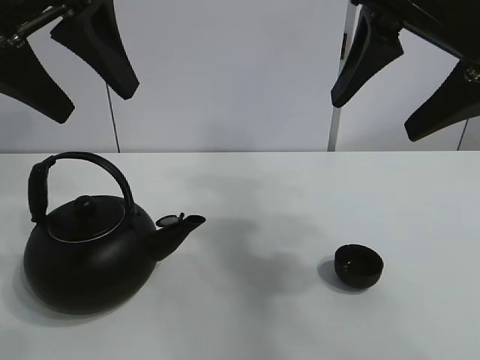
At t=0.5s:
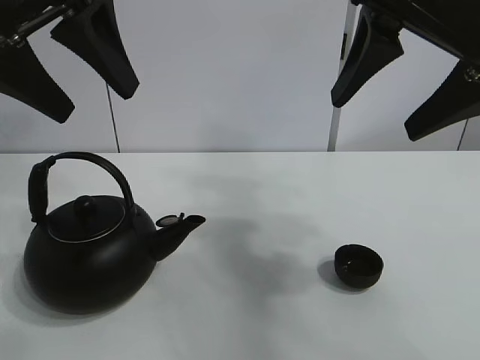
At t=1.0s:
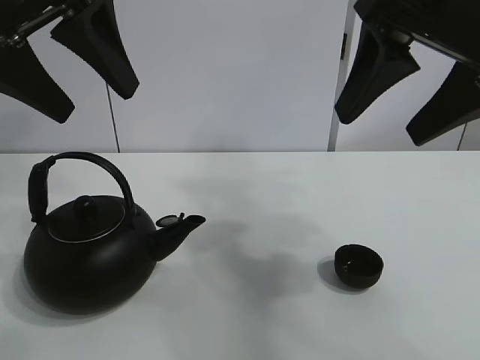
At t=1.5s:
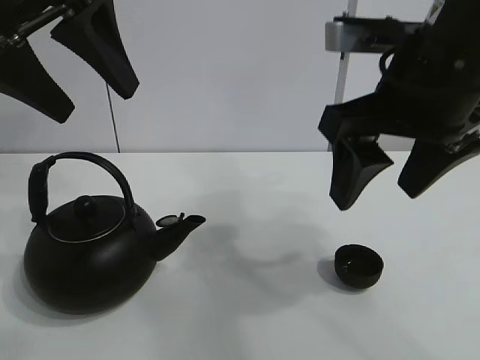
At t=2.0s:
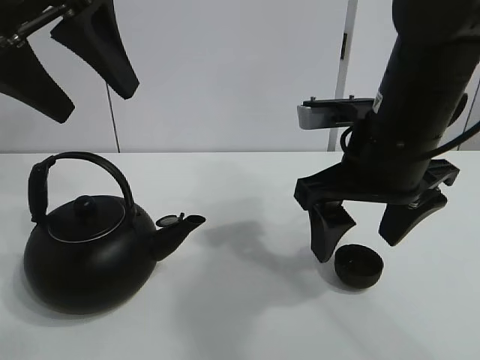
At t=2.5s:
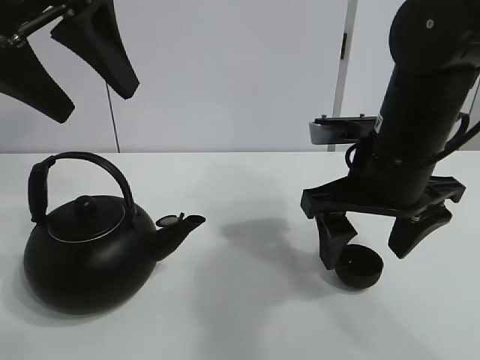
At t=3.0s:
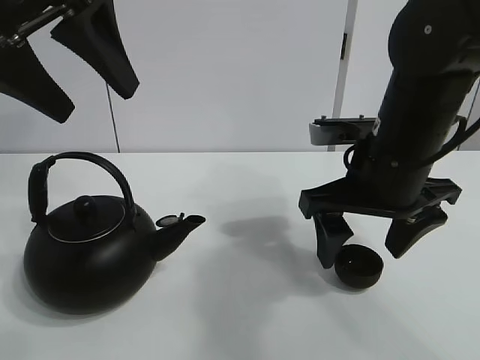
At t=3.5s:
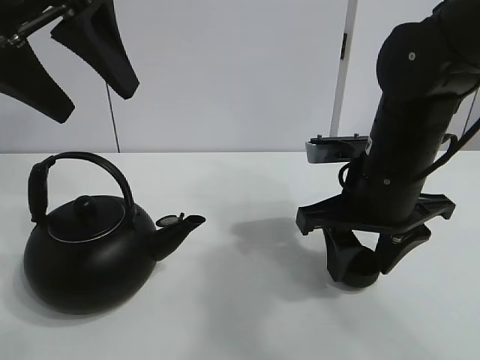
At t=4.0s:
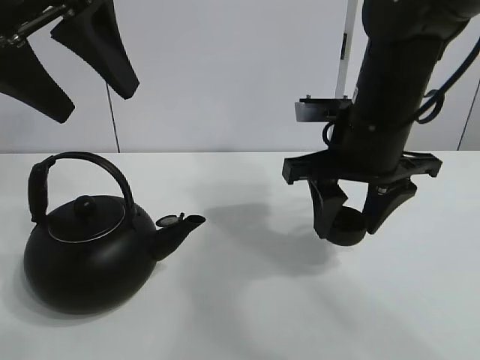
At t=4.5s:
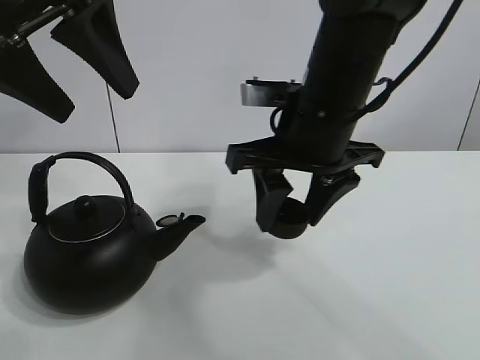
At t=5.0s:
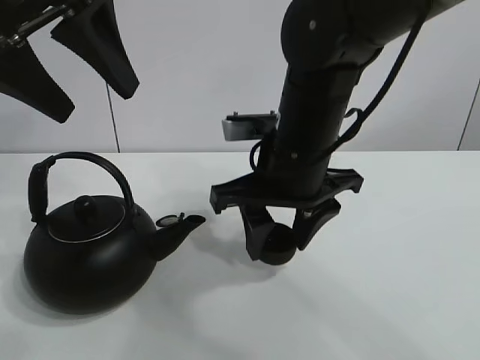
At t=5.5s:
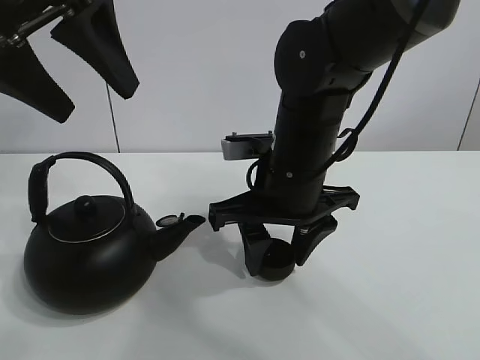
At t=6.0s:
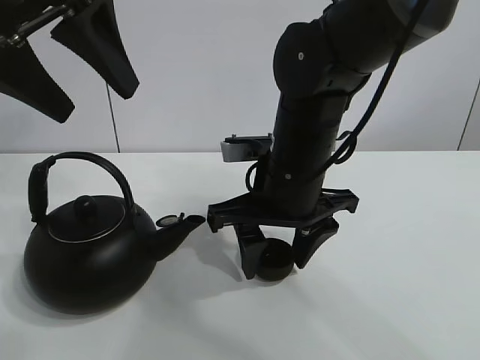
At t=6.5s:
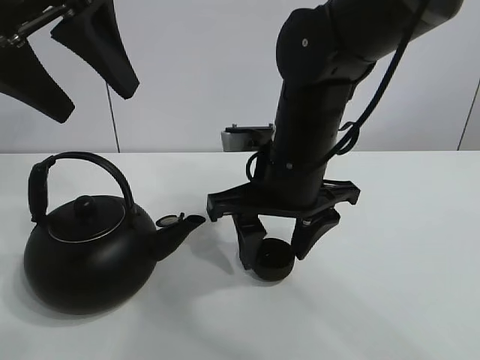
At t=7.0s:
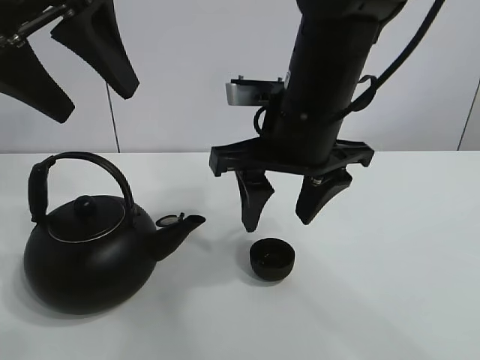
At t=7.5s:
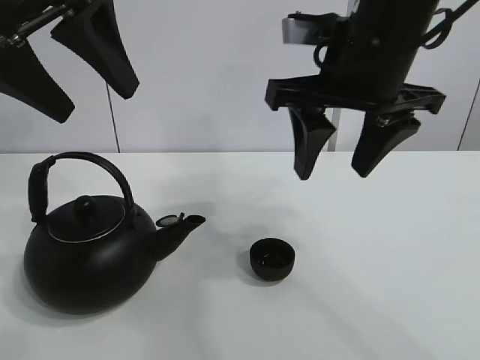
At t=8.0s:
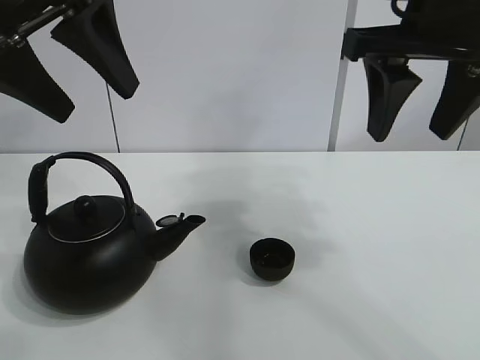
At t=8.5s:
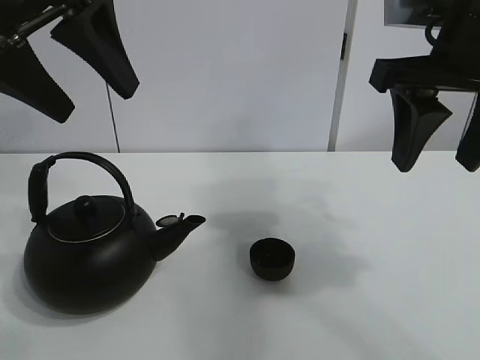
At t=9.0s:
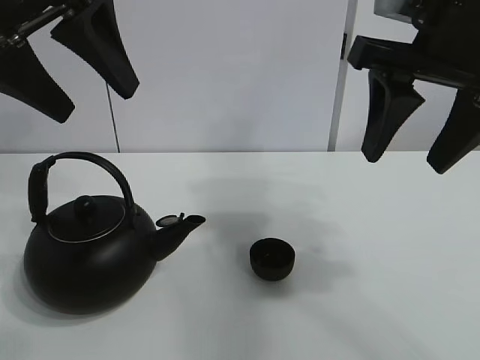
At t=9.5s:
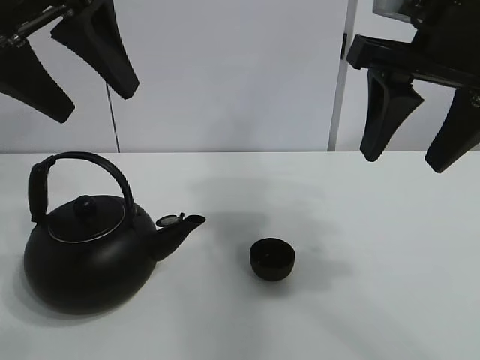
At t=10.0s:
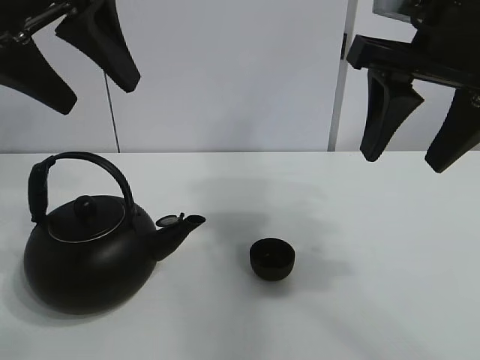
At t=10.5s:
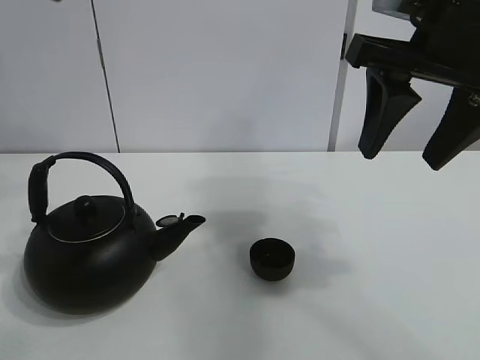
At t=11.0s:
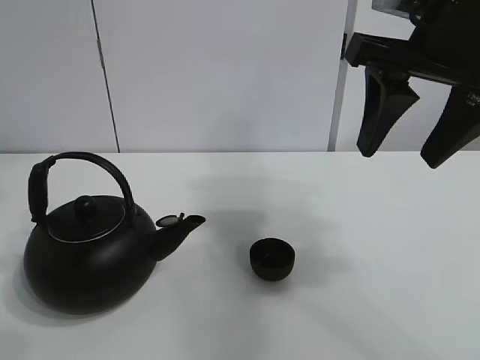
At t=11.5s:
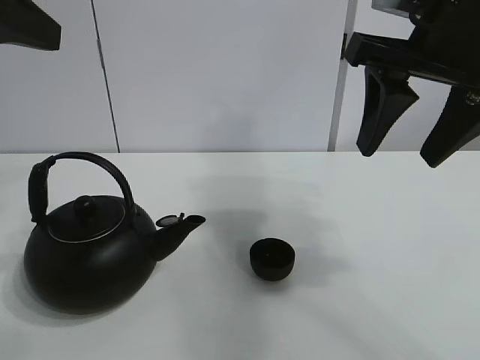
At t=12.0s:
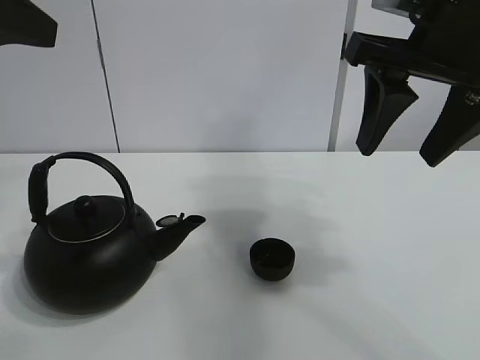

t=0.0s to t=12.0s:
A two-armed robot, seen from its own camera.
Task of the whole recording: pour tea into the teacup.
Step, t=0.0s to t=3.0s: Pick up the teacup with the right gripper.
Step, t=4.0s to t=6.0s: Place the teacup in the center of view with the right gripper.
t=2.0s to t=4.0s: The right gripper closes its fingers.
t=4.0s to t=6.0s: The right gripper heads to the left, covering approximately 10 cm.
t=6.0s to t=8.0s: The right gripper goes about 20 cm upward and to the right.
t=8.0s to t=10.0s: The grippers stay close to where they were, moving slightly.
t=10.0s to t=12.0s: The left gripper heads backward and to the left, covering roughly 10 cm.

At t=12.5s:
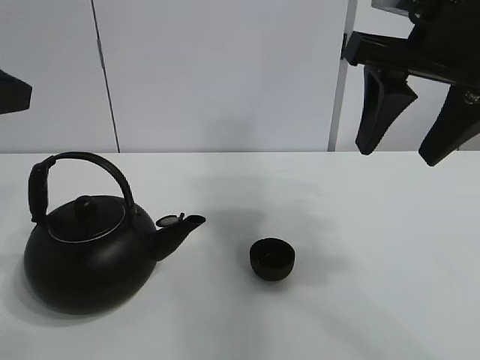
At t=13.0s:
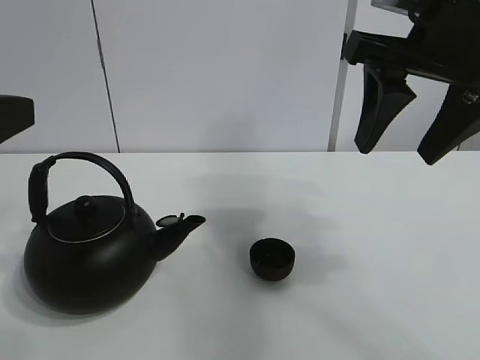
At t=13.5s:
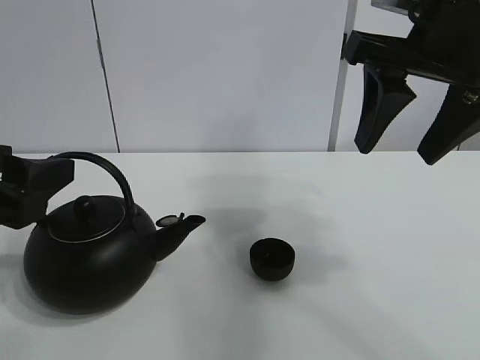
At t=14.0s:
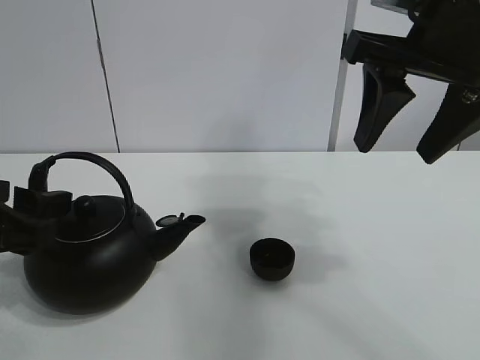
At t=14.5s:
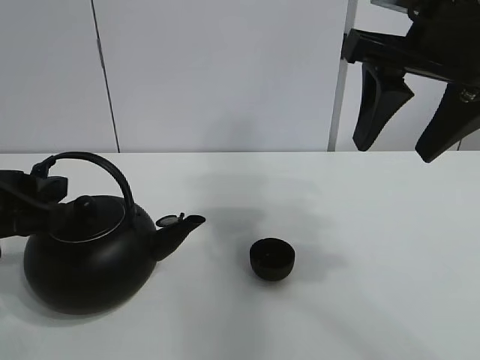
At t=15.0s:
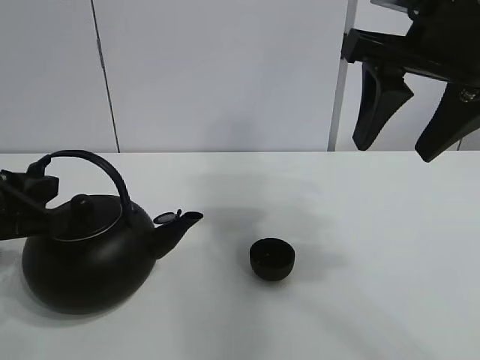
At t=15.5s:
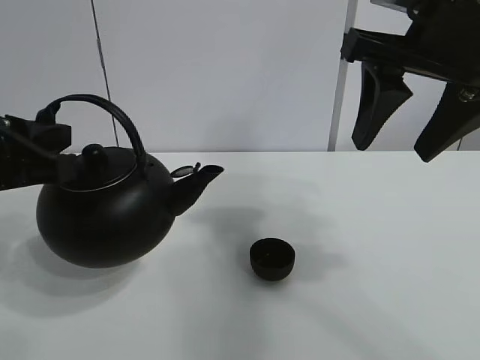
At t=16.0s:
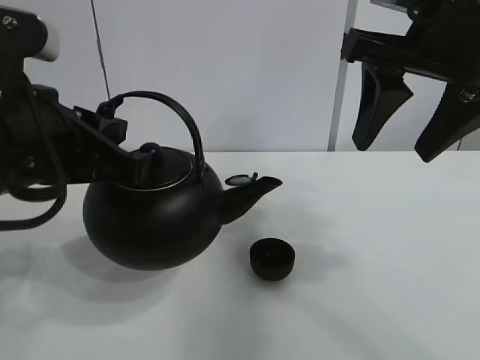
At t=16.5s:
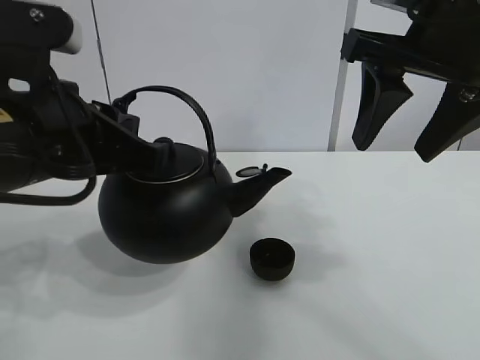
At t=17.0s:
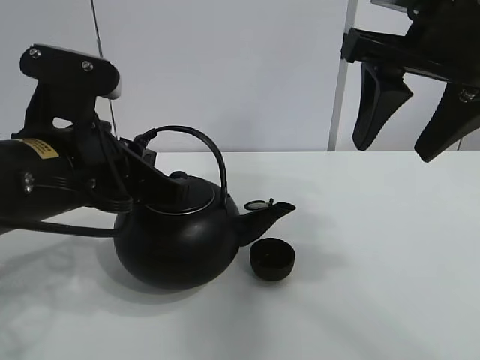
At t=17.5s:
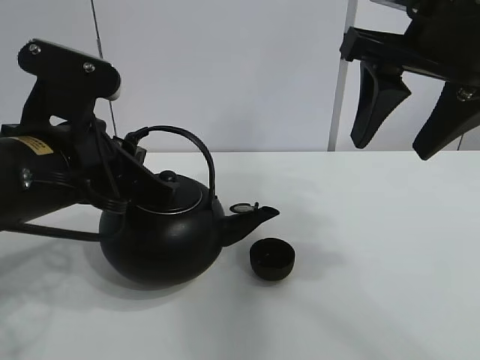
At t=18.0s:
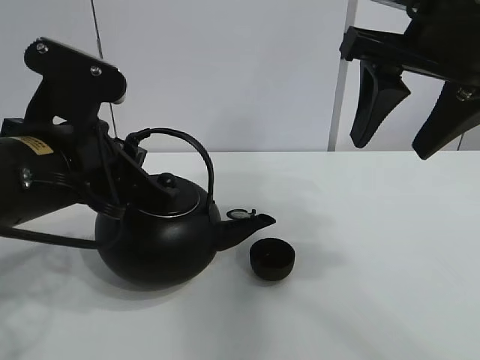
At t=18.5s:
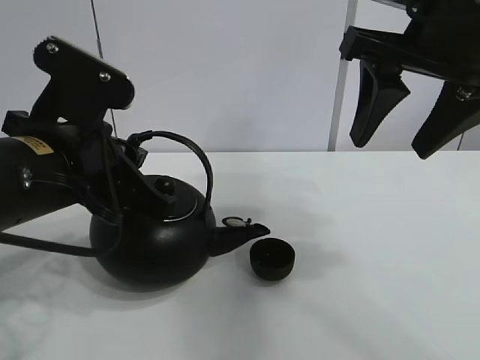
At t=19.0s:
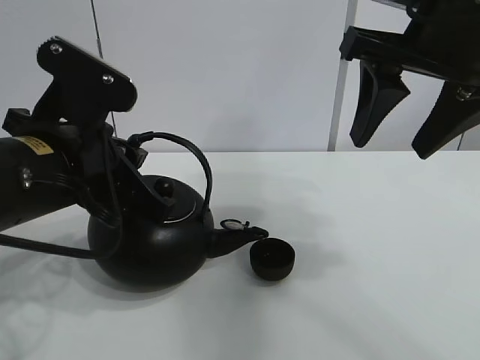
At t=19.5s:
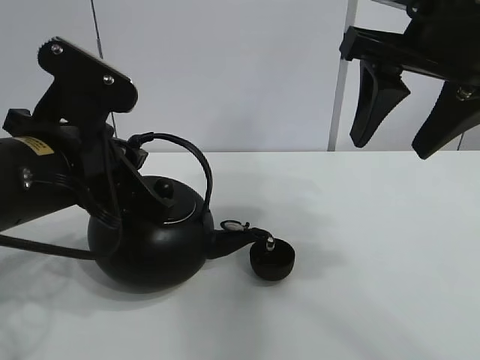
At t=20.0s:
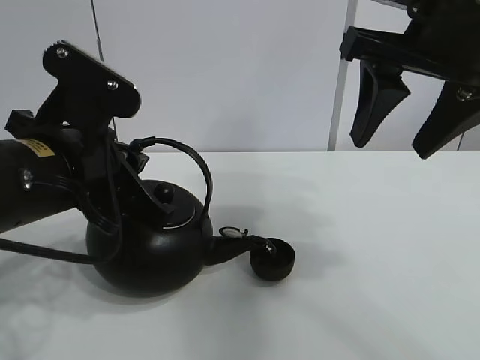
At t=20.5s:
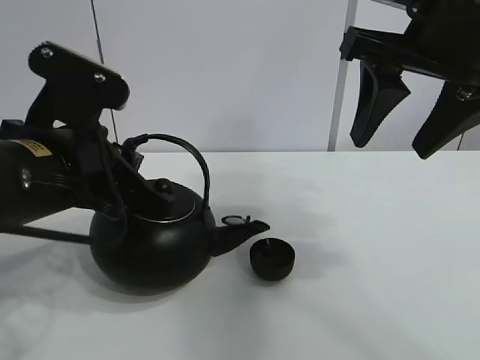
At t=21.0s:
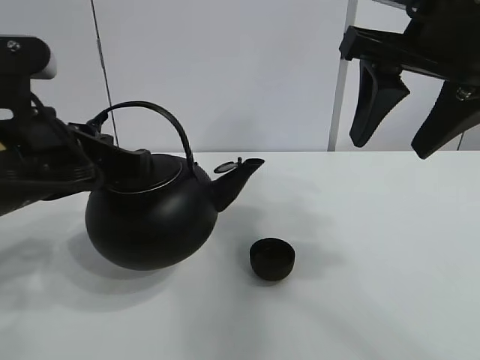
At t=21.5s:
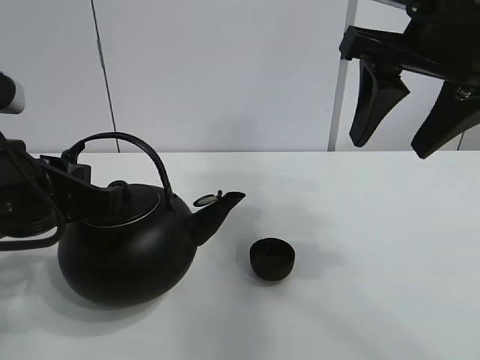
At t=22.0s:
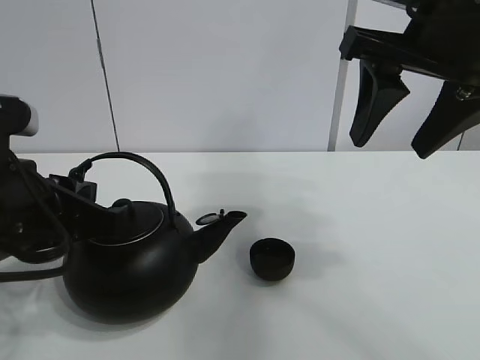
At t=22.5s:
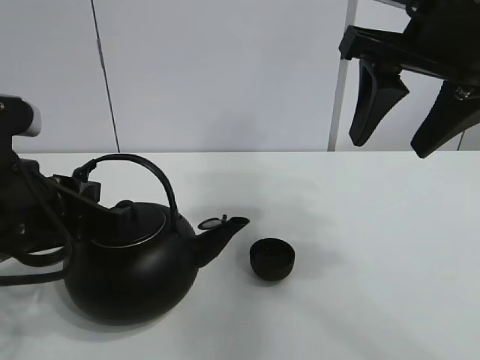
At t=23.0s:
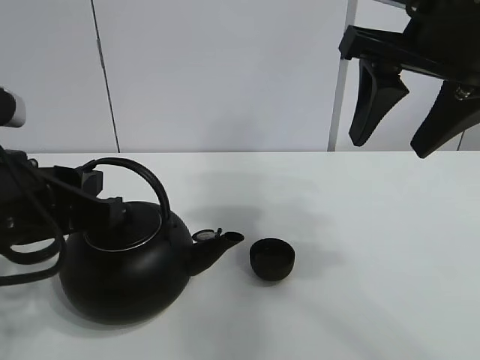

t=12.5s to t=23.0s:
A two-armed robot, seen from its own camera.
Task of the whole recording: pour tea into the teacup.
Step, t=12.5s to t=14.5s: Pick up the teapot with the left gripper.
Step, t=15.0s to t=20.5s: Pour tea into the teacup with the left gripper.
t=12.5s to t=14.5s: The left gripper goes some 10 cm downward.
t=14.5s to t=16.5s: The left gripper shifts roughly 10 cm to the right and upward, and closes its fingers.
t=16.5s to t=19.0s: There are only small adjustments of the grippers.
t=21.0s to t=23.0s: The left gripper opens its fingers.

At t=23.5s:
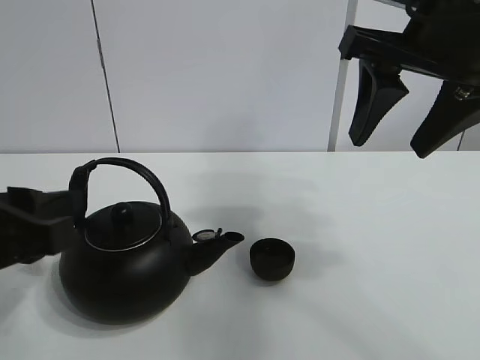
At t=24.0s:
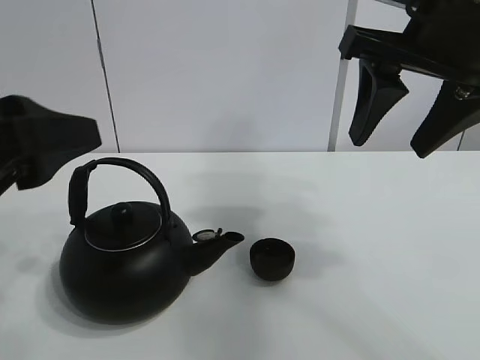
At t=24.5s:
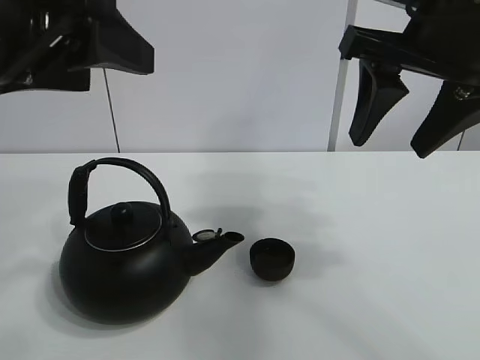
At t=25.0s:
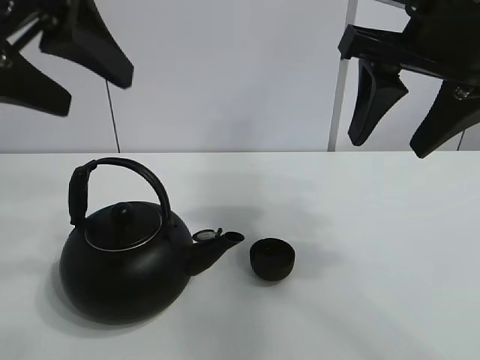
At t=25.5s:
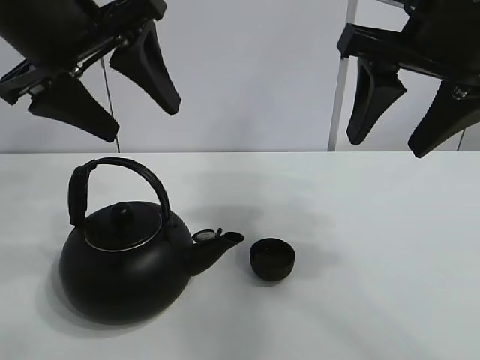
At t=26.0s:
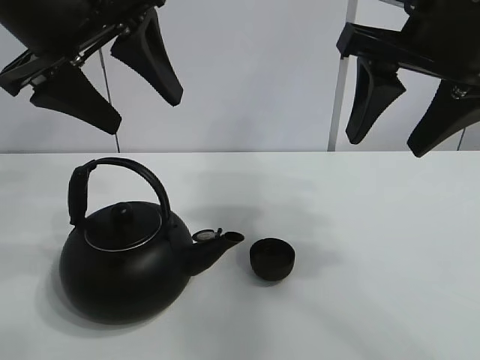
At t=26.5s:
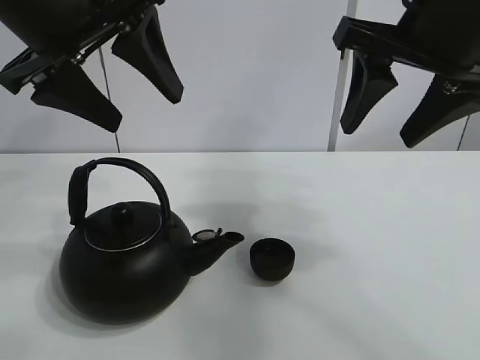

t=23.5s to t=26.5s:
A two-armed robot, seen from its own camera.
Task of the whole recording: pour tea into the teacup.
t=23.5s to t=25.0s: The left gripper is displaced upward and forward by approximately 15 cm, and opens up.
t=25.0s to t=26.5s: The left gripper is displaced forward by approximately 5 cm.
